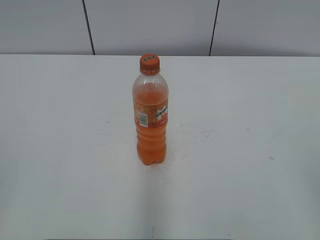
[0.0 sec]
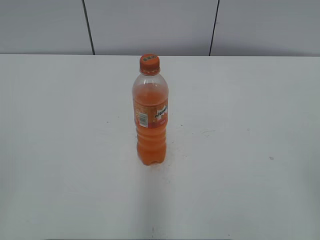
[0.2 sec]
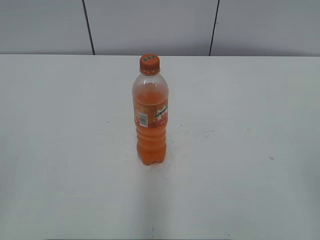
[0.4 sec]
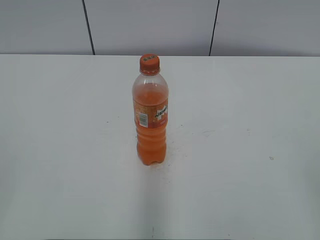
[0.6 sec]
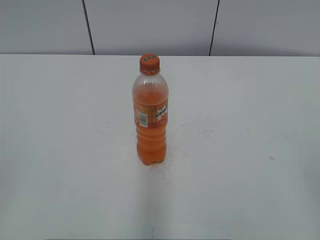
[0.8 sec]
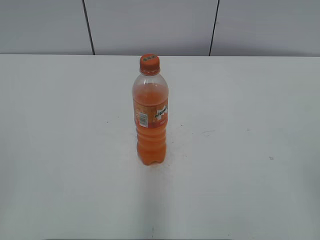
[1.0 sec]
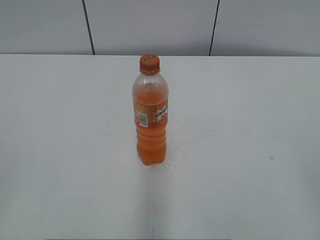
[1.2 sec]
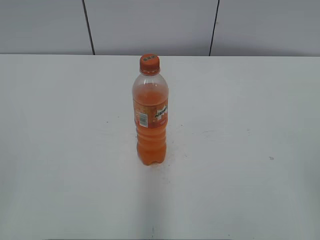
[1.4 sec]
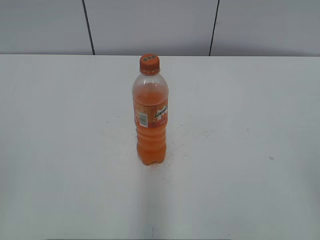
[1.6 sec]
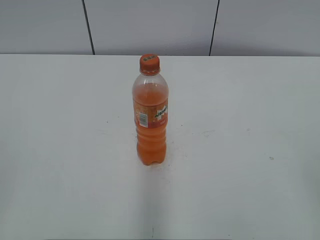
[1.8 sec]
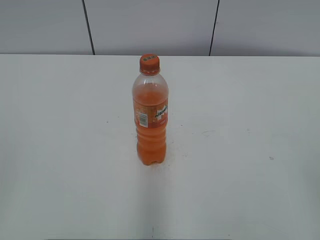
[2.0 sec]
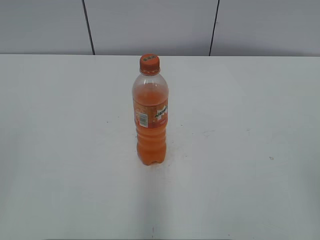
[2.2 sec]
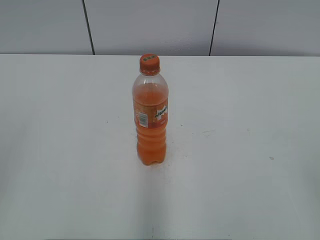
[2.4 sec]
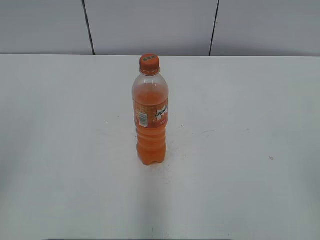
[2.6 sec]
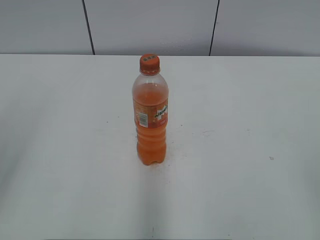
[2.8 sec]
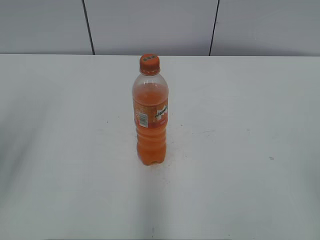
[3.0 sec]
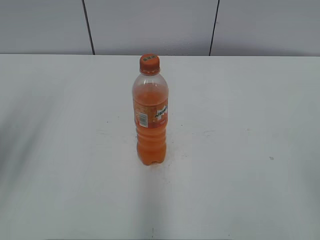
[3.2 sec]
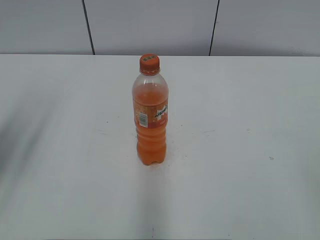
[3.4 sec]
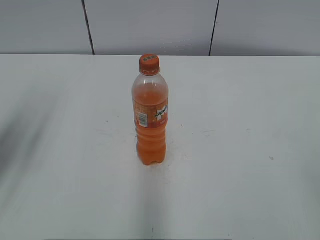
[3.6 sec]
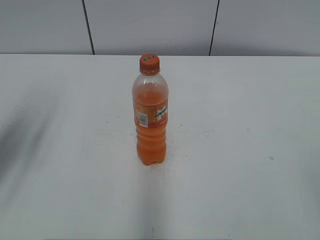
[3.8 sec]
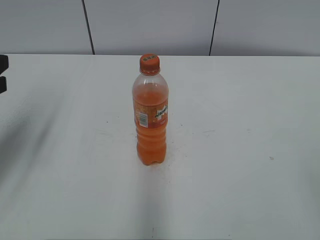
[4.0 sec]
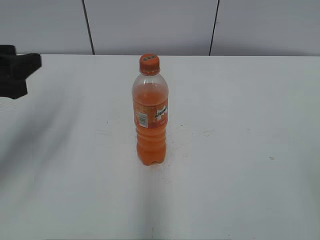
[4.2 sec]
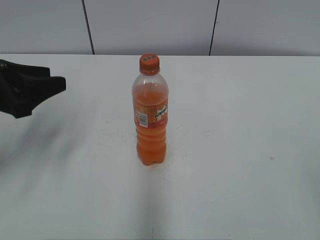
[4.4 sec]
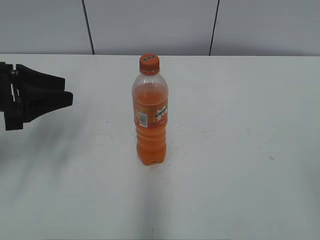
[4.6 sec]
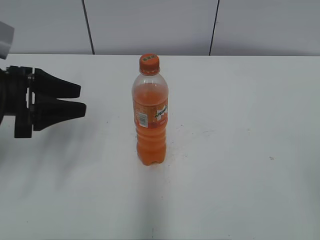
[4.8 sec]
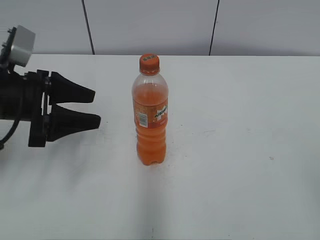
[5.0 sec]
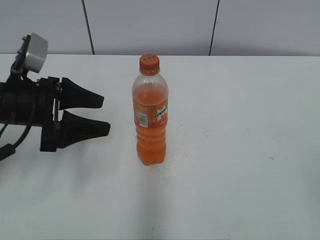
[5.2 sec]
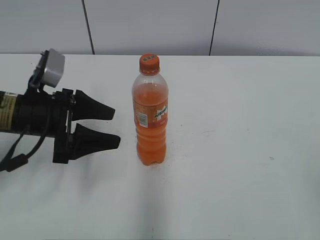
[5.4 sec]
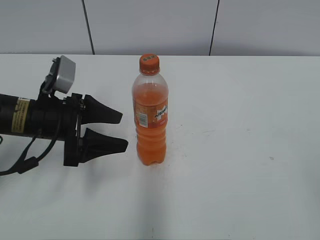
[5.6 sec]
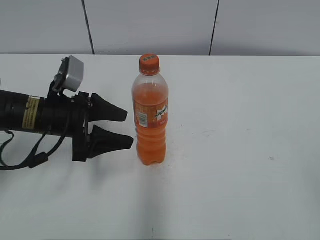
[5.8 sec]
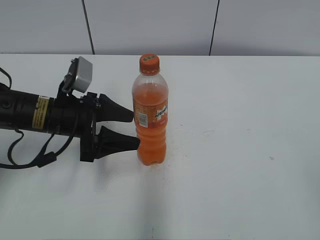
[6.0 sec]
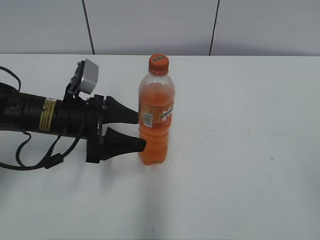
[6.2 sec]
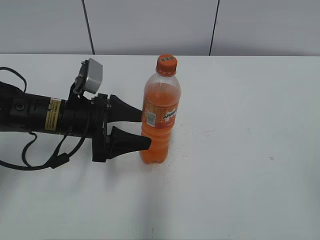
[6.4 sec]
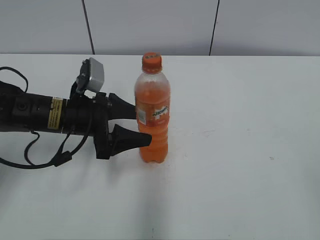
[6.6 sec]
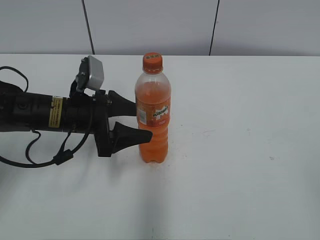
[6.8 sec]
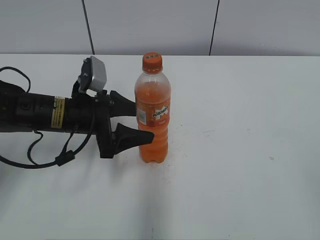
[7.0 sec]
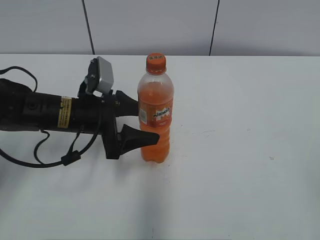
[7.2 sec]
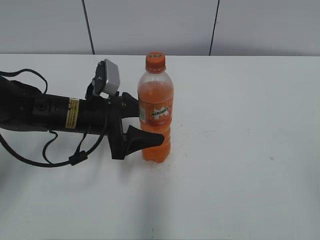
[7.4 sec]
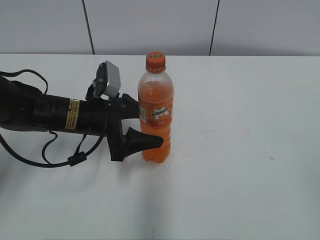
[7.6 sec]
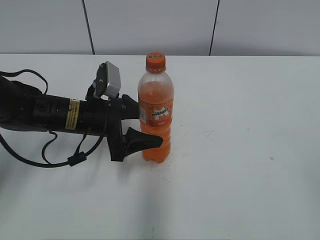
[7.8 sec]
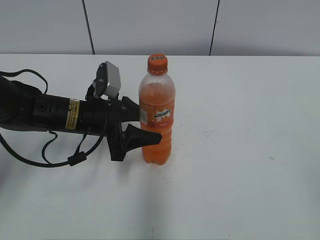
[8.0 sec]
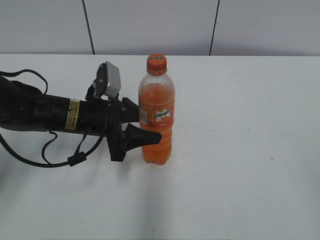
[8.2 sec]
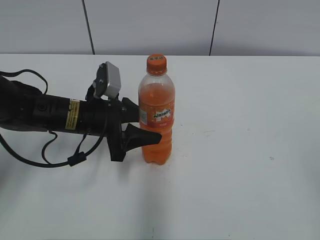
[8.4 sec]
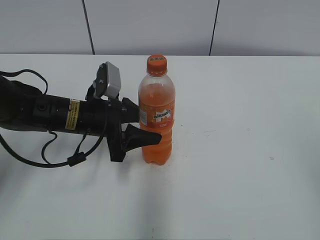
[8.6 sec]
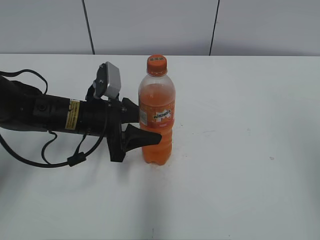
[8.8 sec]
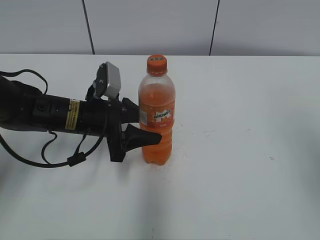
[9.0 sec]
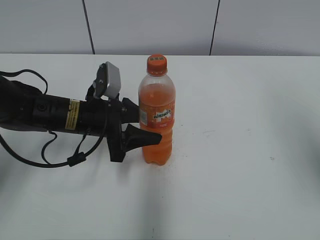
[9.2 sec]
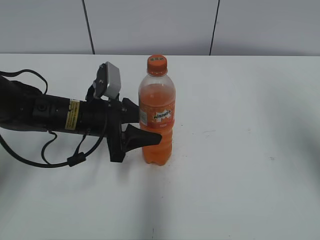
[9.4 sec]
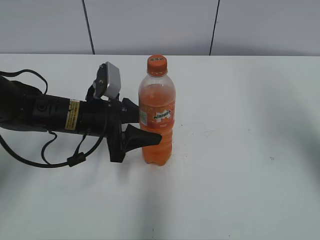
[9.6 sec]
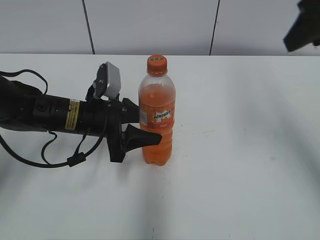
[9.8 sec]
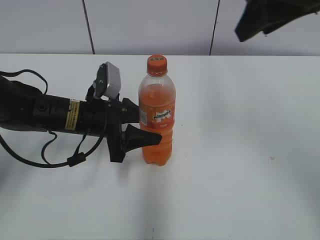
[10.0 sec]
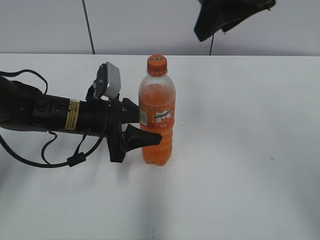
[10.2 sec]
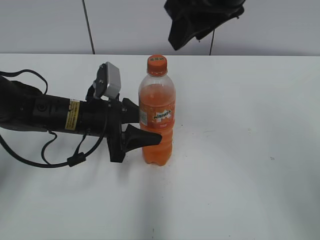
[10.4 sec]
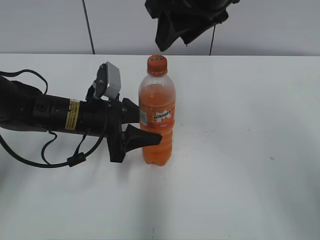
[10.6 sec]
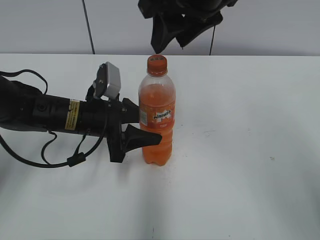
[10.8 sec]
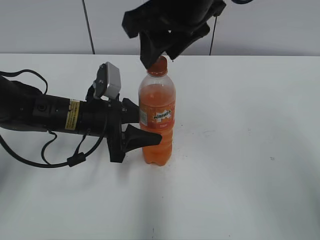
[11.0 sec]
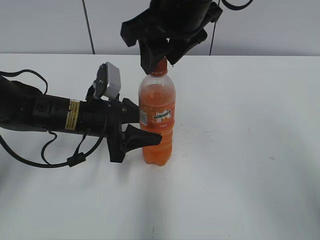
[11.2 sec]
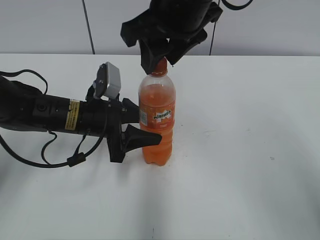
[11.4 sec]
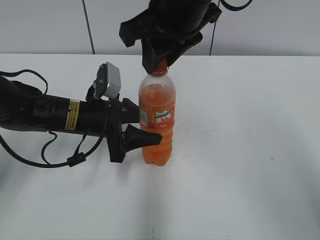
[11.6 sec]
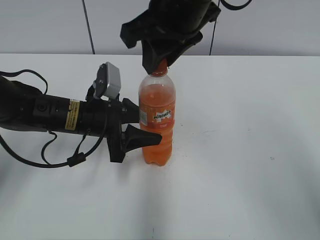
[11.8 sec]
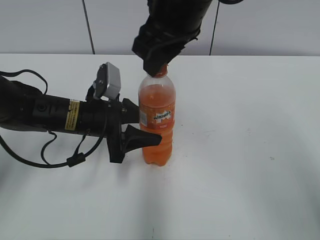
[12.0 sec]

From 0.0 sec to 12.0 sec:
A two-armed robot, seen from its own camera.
Step, from 0.0 sec to 8.0 sec: Grab the Mirinda with the left hand.
From 3.0 sec to 4.4 sec: The left gripper heads forward and downward, covering approximately 15 cm.
From 4.4 sec to 6.0 sec: The left gripper heads to the right and downward, covering some 10 cm, and opens.
From 6.0 sec to 7.6 sec: There are only small adjustments of the grippers.
From 7.6 sec to 9.0 sec: The right gripper is displaced forward and upward by roughly 15 cm, and closes up. The left gripper closes its fingers.
From 9.0 sec to 10.4 sec: The right gripper moves to the left and forward, roughly 30 cm.
From 10.4 sec to 12.0 sec: The right gripper travels to the left by approximately 5 cm, and closes up.

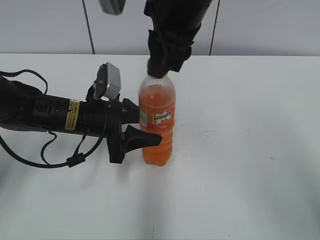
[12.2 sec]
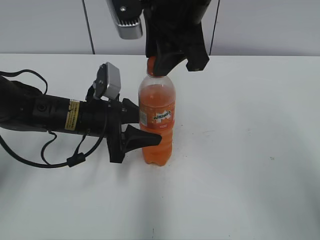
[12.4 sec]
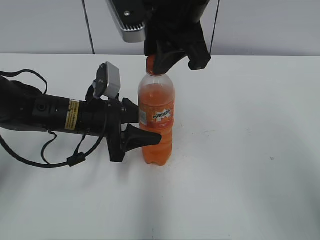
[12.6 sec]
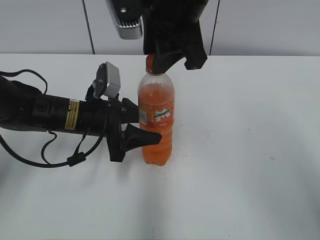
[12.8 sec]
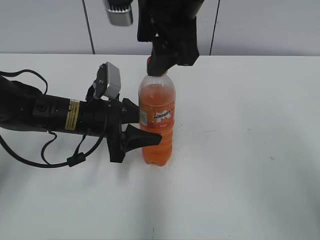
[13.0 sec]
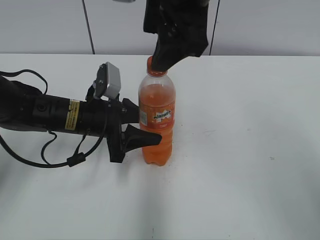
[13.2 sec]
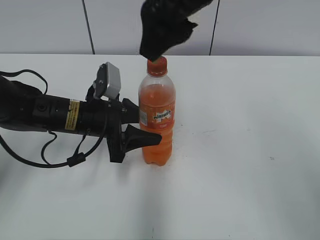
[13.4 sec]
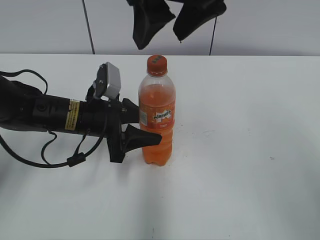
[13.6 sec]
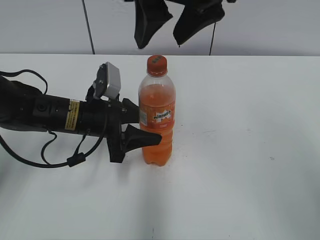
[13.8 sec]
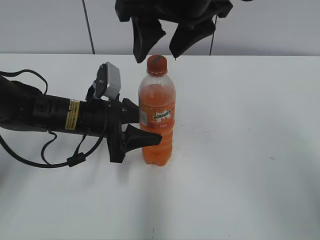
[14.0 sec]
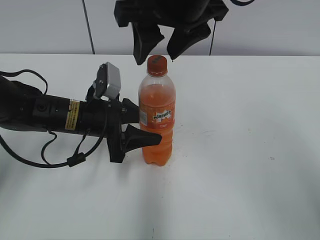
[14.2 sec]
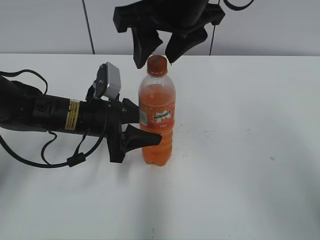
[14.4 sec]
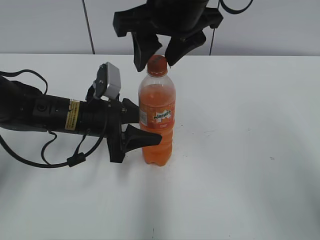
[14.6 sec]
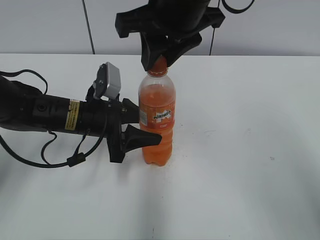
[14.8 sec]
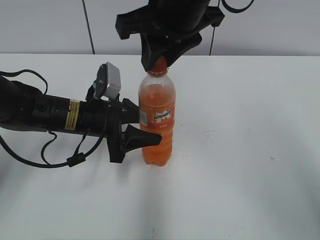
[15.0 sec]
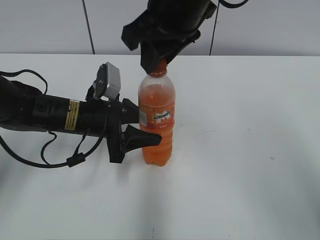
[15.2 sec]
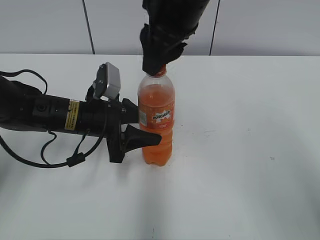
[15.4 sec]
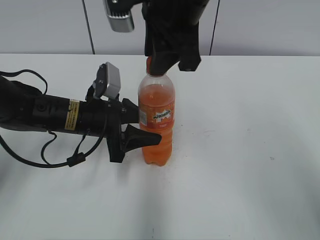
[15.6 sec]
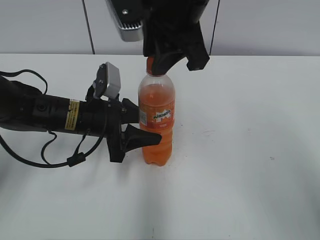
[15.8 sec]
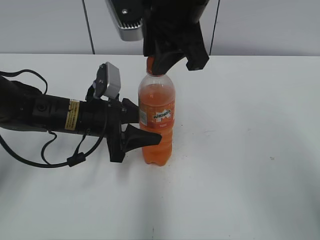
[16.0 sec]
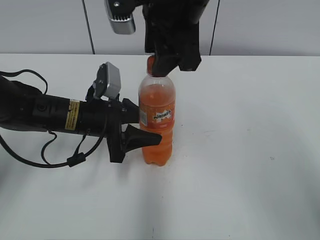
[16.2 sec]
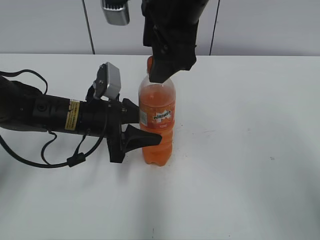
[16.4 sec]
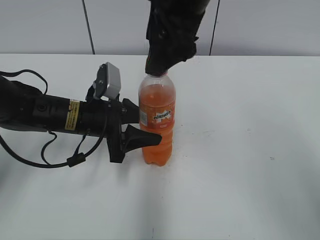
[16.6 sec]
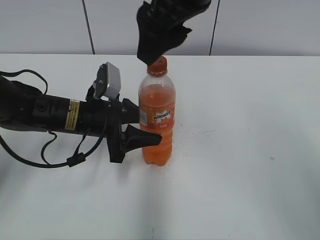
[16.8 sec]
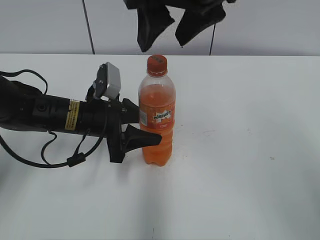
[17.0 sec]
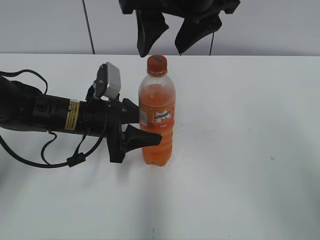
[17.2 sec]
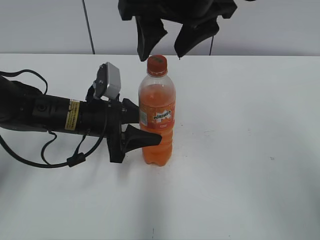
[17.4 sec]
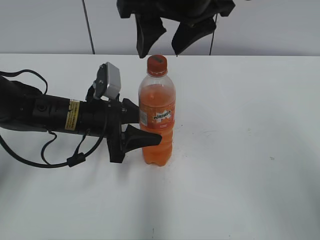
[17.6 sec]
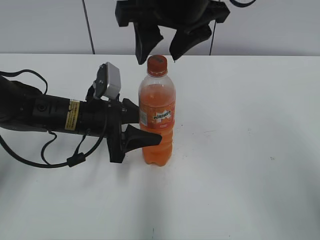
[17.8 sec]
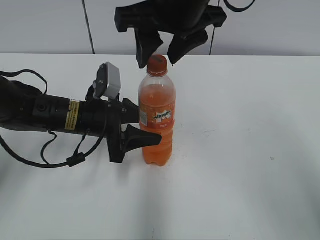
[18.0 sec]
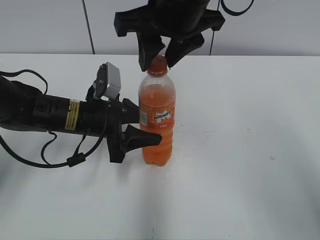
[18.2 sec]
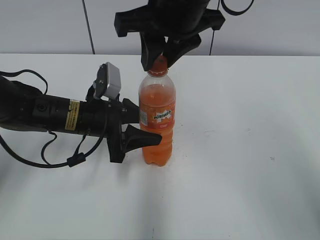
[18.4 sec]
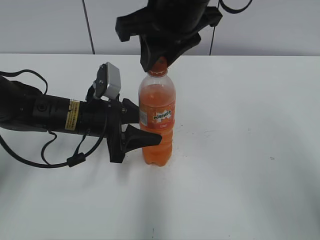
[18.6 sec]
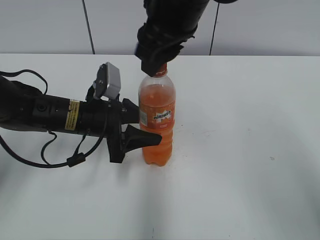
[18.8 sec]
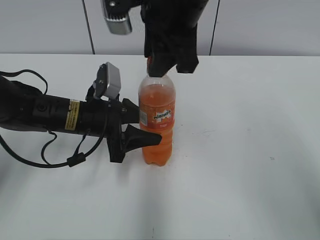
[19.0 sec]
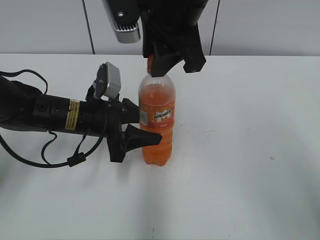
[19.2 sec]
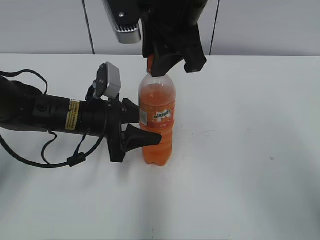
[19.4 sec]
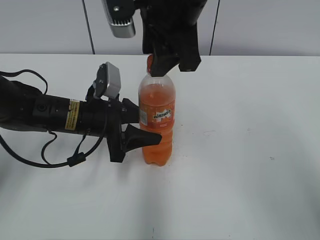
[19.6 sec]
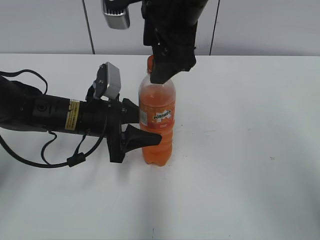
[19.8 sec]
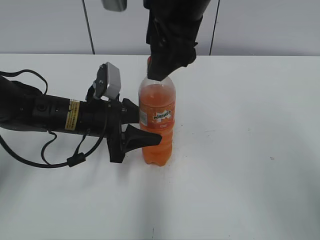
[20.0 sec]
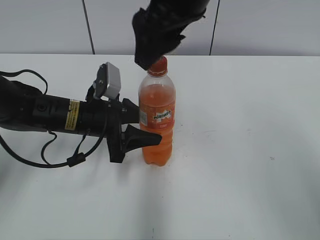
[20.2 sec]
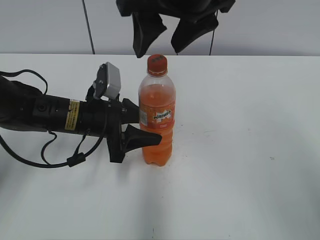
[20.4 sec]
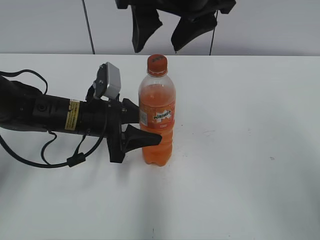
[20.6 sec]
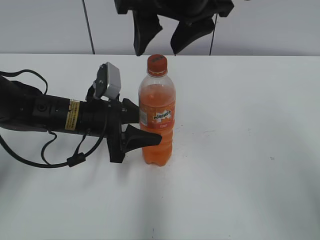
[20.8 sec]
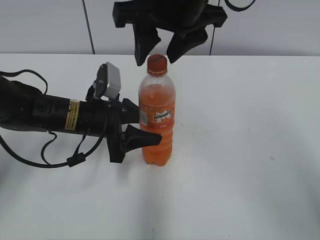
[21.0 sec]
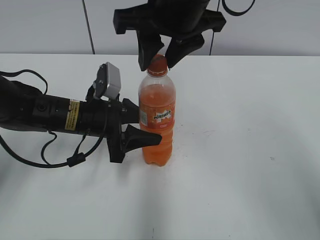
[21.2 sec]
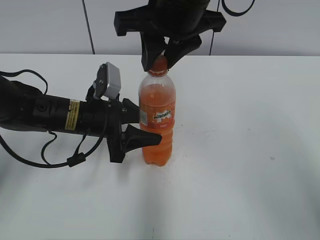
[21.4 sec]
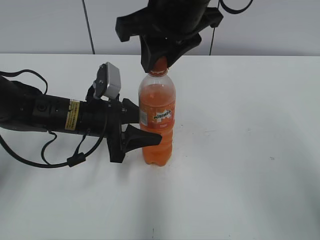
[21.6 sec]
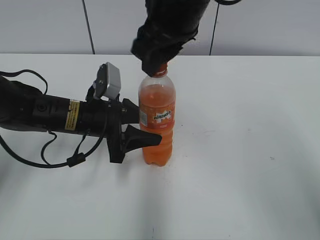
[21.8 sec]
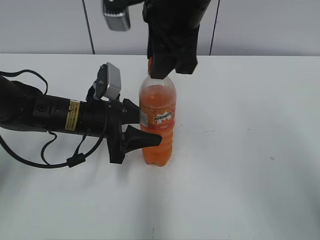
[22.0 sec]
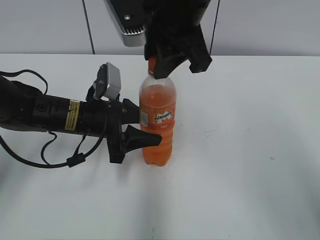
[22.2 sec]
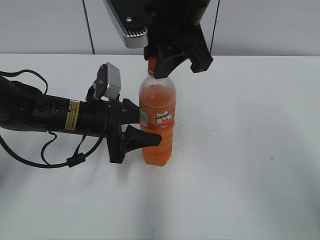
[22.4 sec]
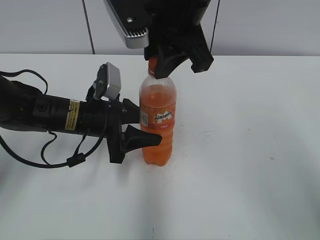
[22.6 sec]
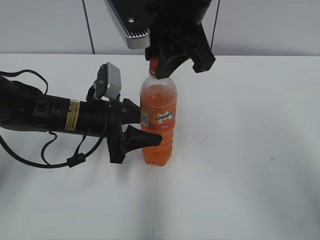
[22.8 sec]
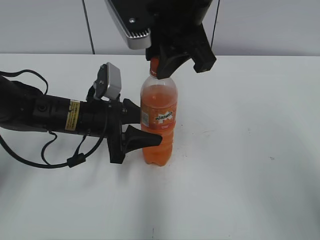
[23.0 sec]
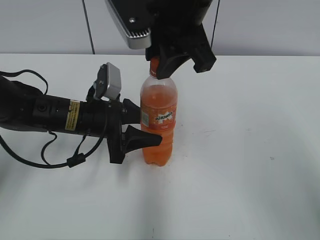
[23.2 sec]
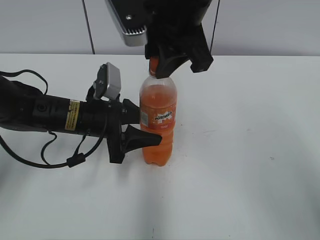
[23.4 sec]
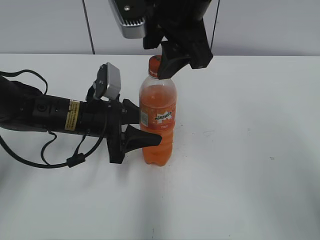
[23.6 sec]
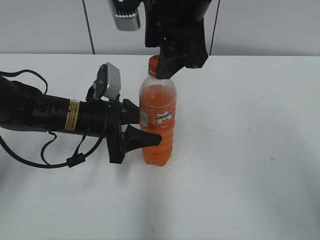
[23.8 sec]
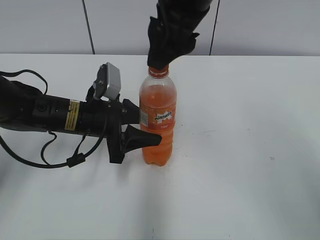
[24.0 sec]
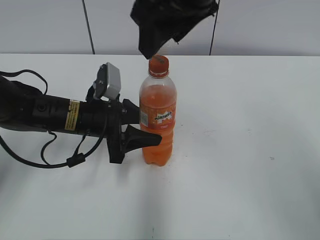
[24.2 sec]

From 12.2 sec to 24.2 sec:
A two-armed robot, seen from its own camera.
From 12.2 sec to 13.8 sec: The right gripper opens its fingers.
From 13.8 sec to 15.2 sec: The right gripper closes.
From 15.2 sec to 16.6 sec: The right gripper opens its fingers.
From 16.6 sec to 18.2 sec: The right gripper closes its fingers.
From 18.2 sec to 19.8 sec: The right gripper opens.
From 19.8 sec to 21.2 sec: The right gripper closes up.
From 22.6 sec to 24.2 sec: The right gripper opens.
